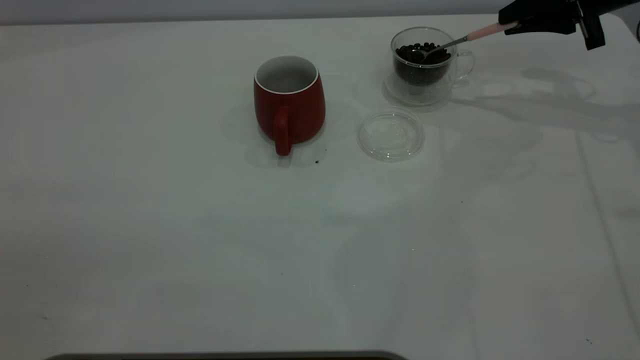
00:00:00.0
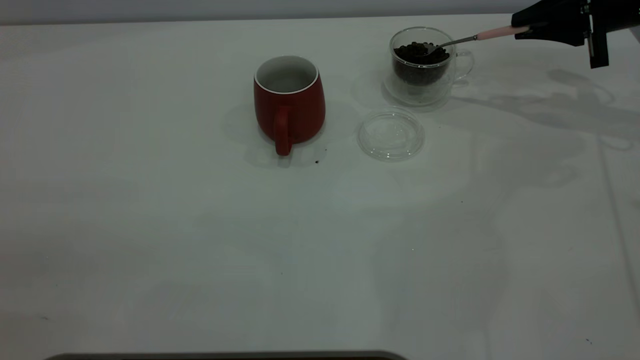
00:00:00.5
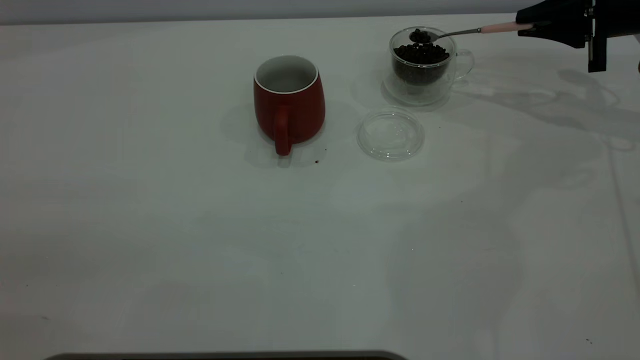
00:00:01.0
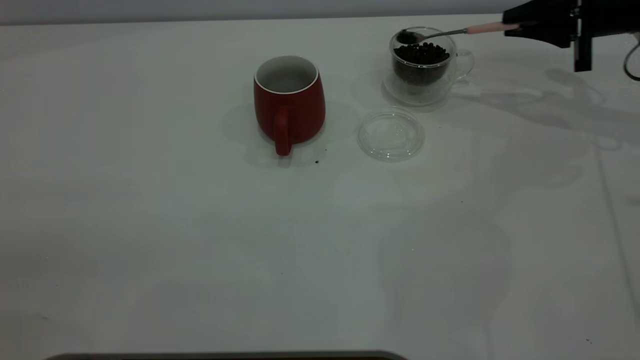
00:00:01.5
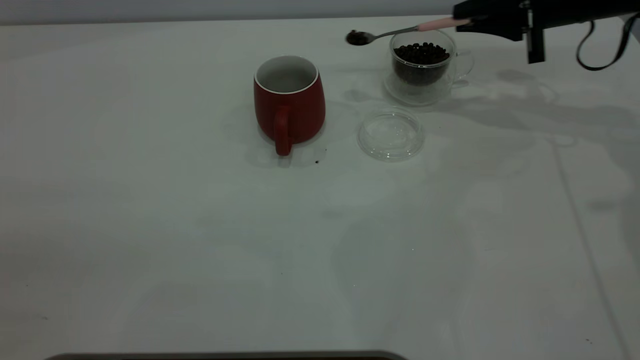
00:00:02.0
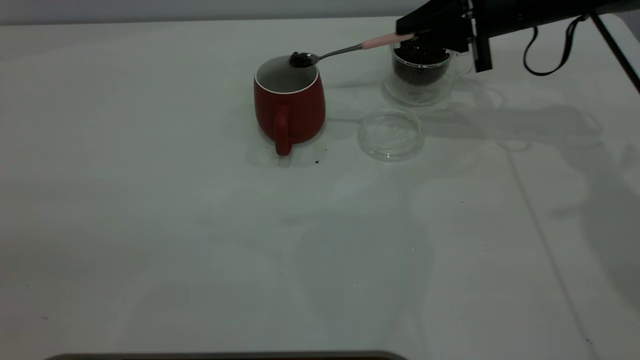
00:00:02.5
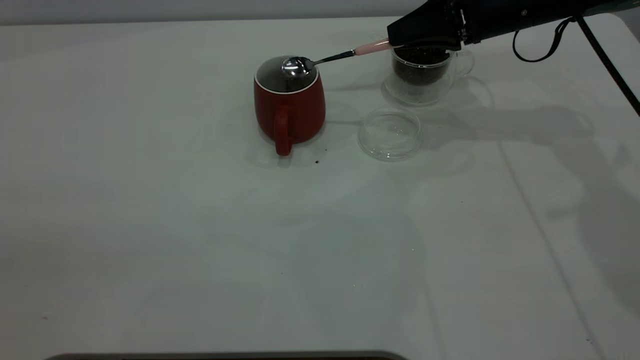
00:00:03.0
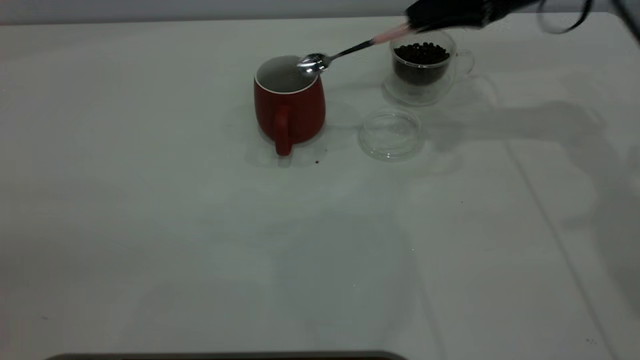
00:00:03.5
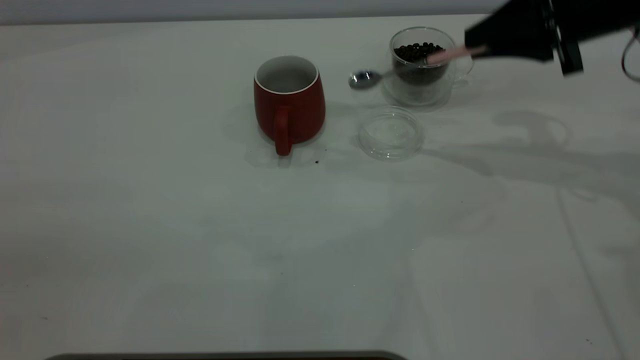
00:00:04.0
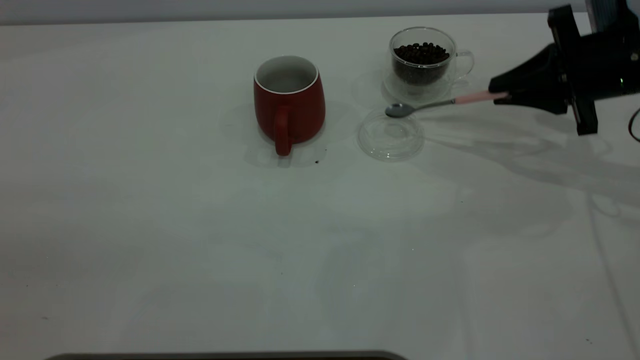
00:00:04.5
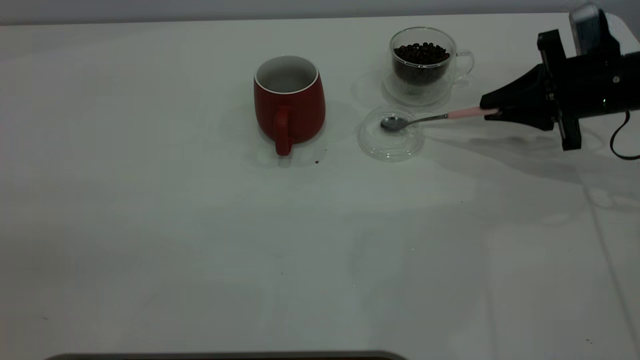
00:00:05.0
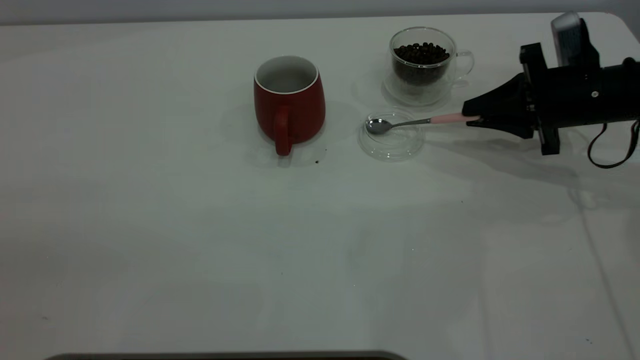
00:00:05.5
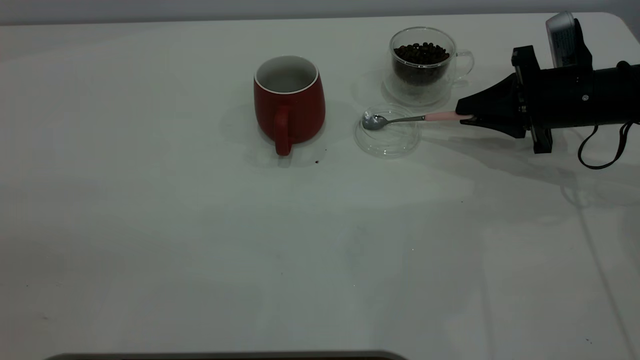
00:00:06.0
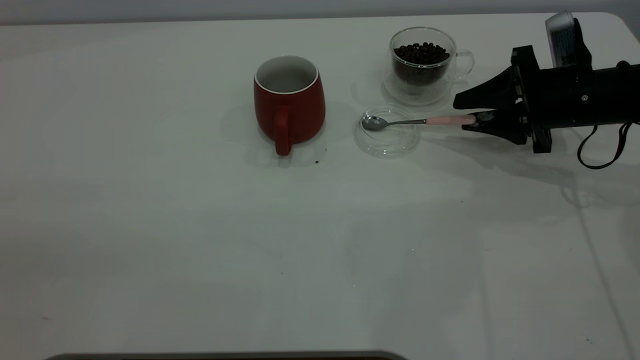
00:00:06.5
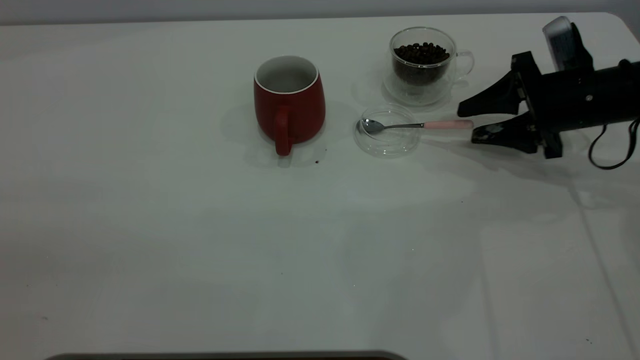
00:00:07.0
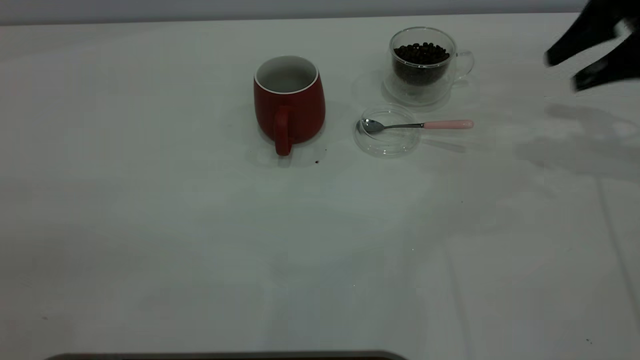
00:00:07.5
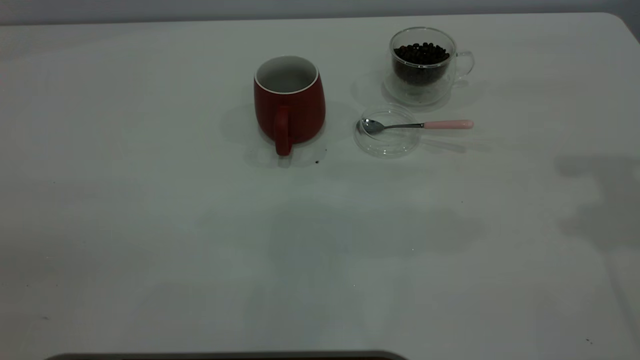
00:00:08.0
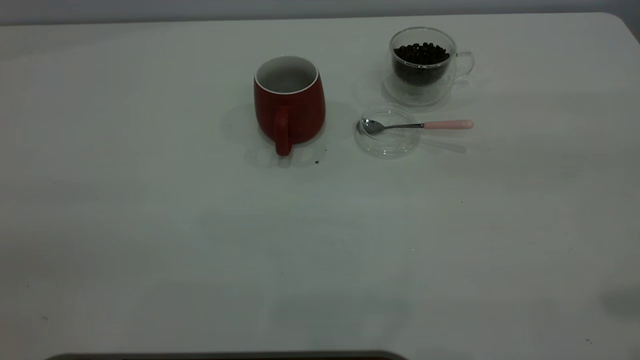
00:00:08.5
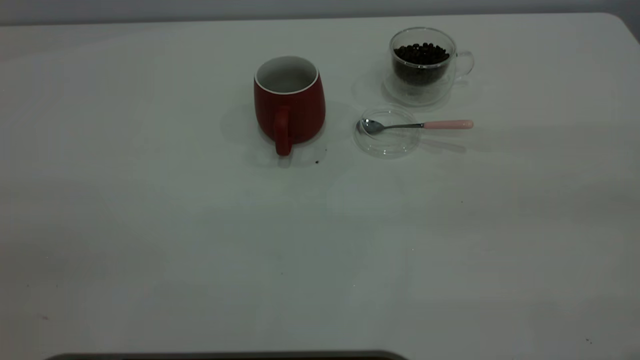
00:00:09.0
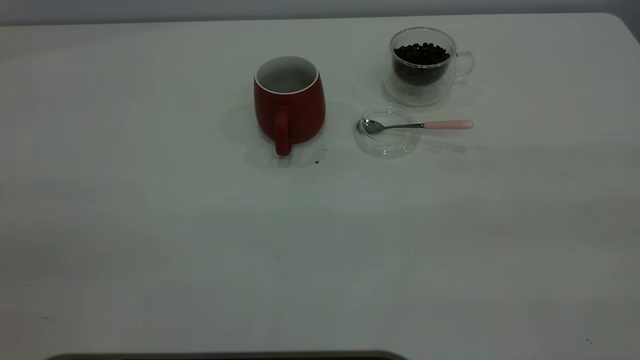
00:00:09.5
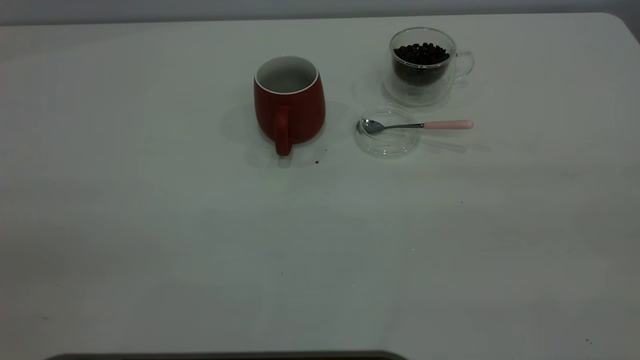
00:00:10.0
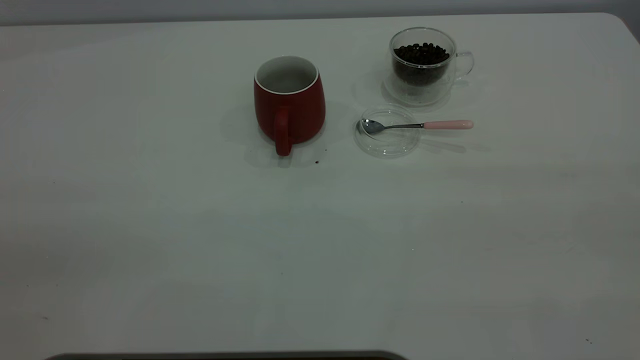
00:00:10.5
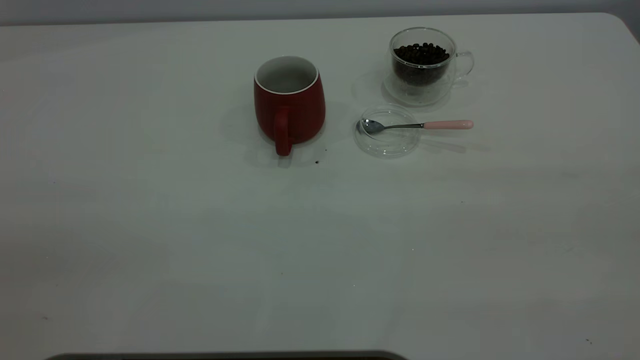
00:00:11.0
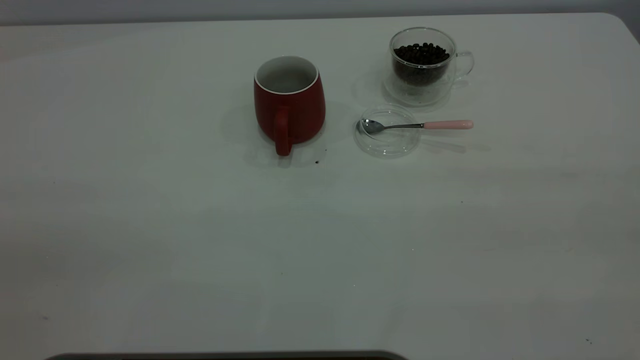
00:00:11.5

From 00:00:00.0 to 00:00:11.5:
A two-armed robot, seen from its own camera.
Task of the whole recording: the left gripper place the red cup in the center of the table, the right gripper take the pink spoon from the cup lid and scoop out the coffee beans from the coffee cup and put them into the red cup, the right gripper put the spoon back into the cup lid.
Step, from 00:00:00.0 to 00:00:03.0: Scoop a spoonful of beans into the cup.
Step, from 00:00:03.5 to 00:00:07.0: Place the spoon back in its original place.
From 00:00:00.0 to 00:00:02.0: The right gripper is displaced to the left by some 5 cm.
From 00:00:02.0 to 00:00:04.0: The right gripper is displaced backward by some 10 cm.
From 00:00:04.0 to 00:00:06.0: The right gripper is displaced downward by some 10 cm.
From 00:00:06.0 to 00:00:07.5: The right gripper heads upward, covering about 15 cm, and opens.
From 00:00:07.5 to 00:00:09.5: The right gripper shifts about 40 cm backward and upward.
